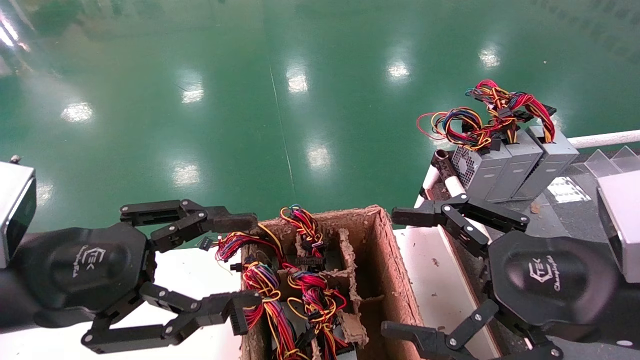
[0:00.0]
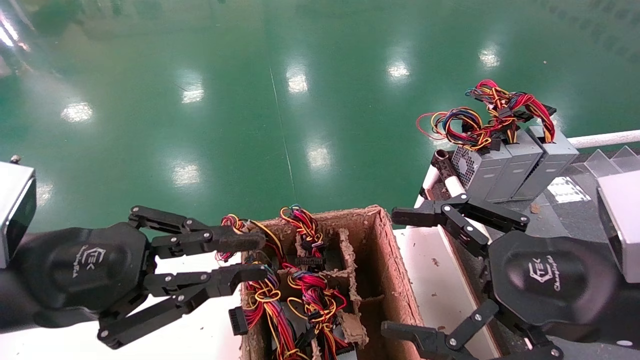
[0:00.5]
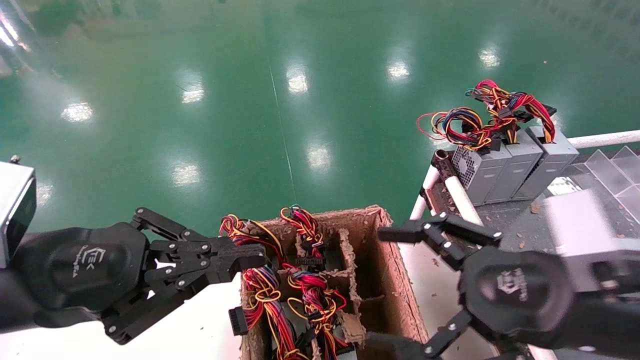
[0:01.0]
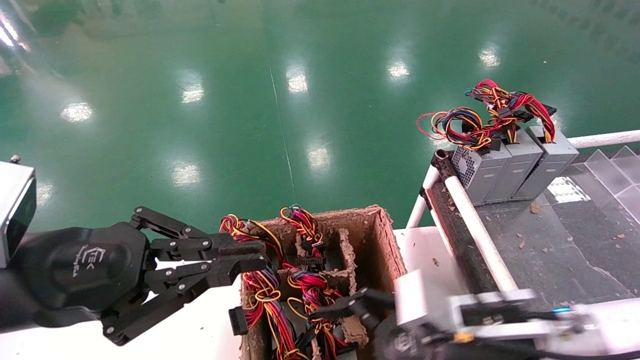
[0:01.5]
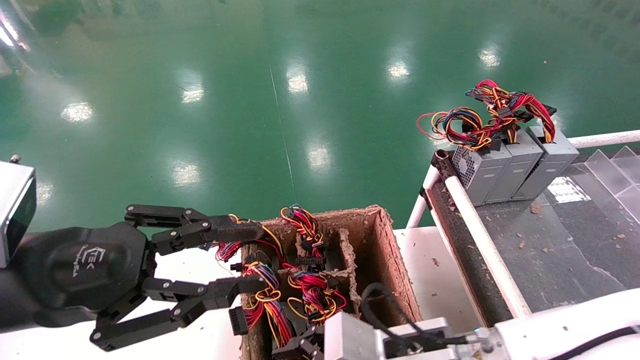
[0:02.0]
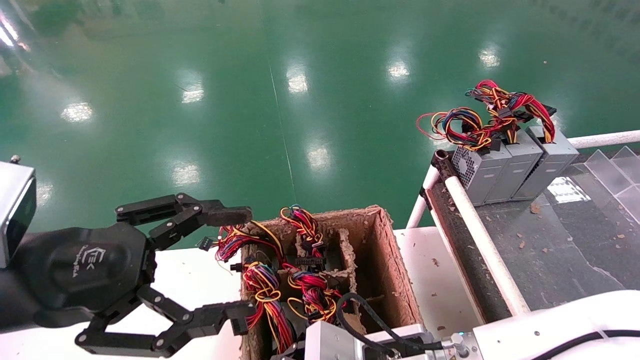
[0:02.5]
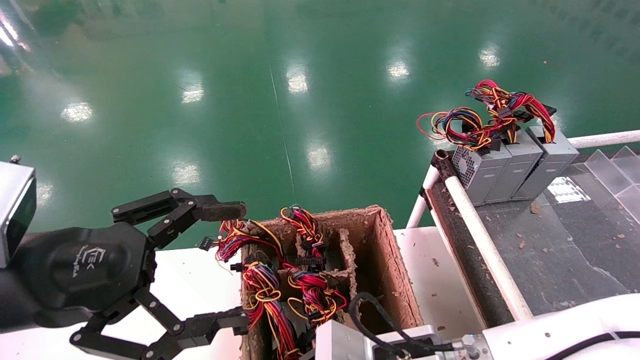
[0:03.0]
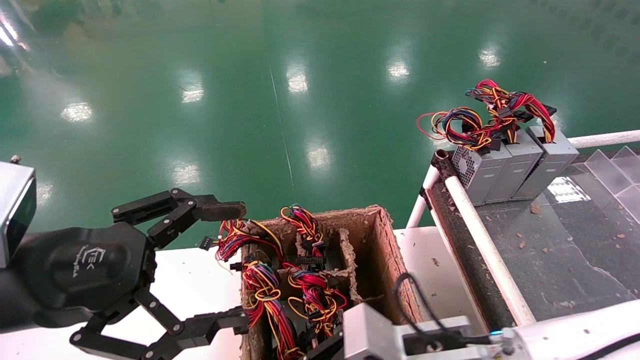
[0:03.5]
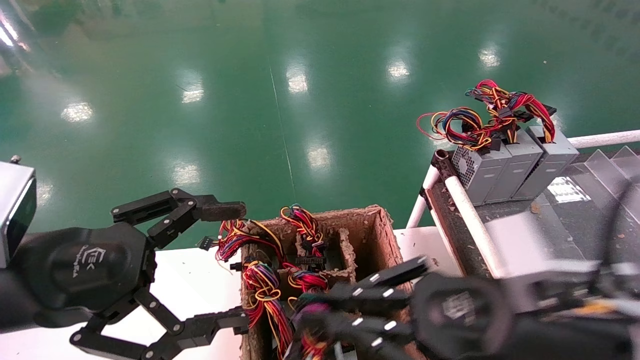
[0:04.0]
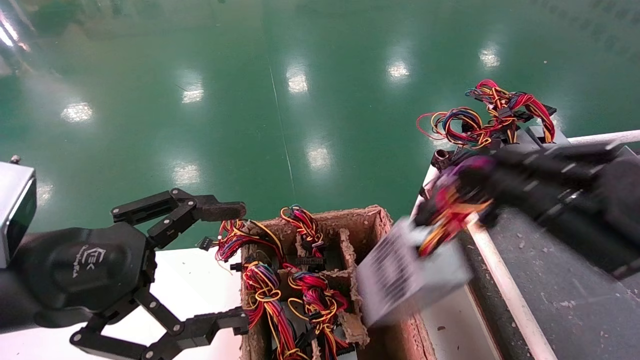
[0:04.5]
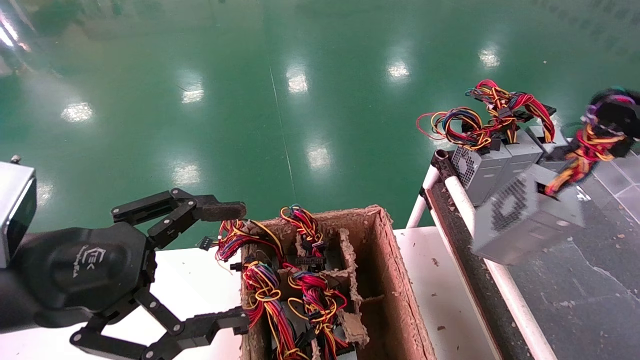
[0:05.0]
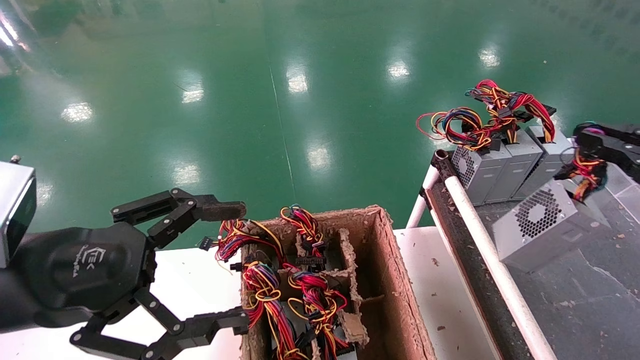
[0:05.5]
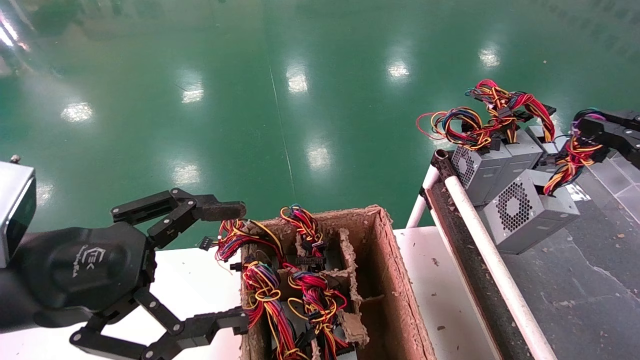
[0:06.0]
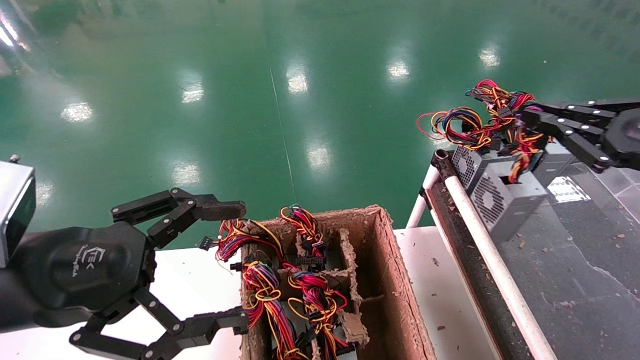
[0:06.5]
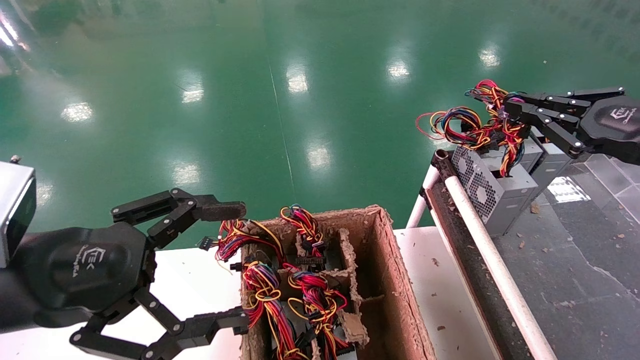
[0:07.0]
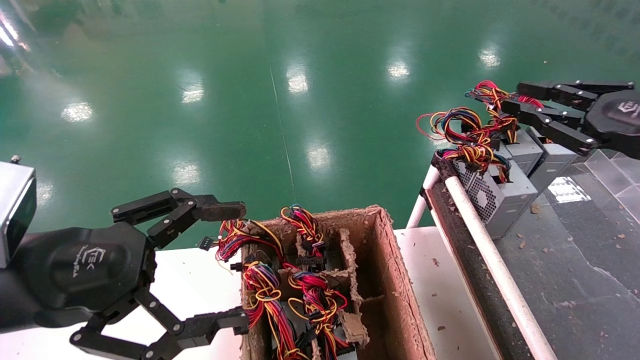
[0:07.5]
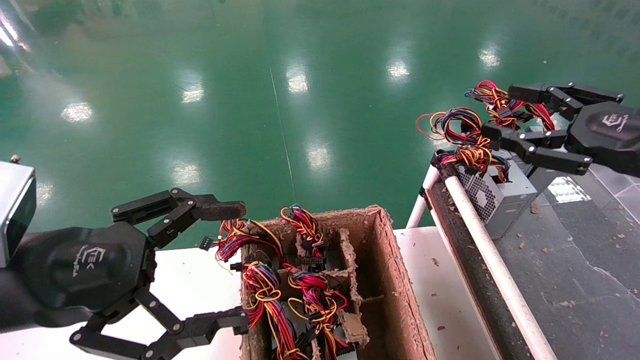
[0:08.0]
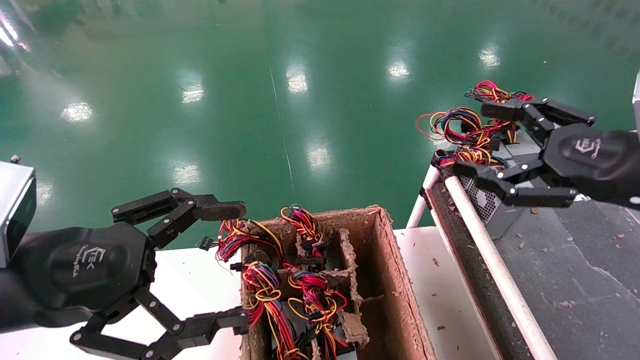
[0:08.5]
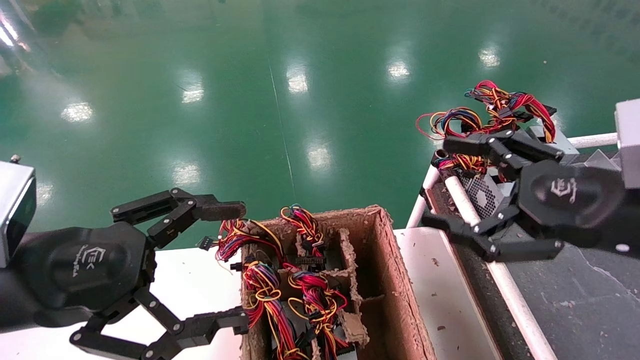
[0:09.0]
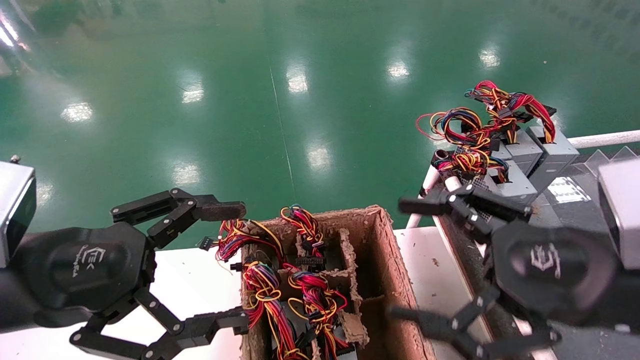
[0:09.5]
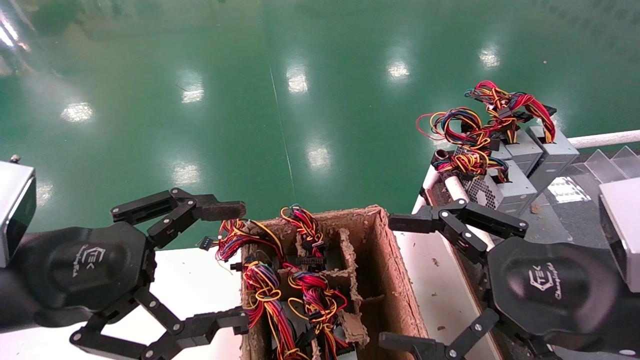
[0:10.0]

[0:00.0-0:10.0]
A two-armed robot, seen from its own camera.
Step, 0:01.5 to 0:03.0: Grab and lift the power supply from the large box.
Step, 0:03.5 to 0:07.0: Place the power supply on the operating table.
0:00.0 to 0:02.0: The left gripper closes its fingers. The right gripper goes about 20 cm downward, to the left and forward.
0:02.0 to 0:04.0: The right gripper travels upward and to the right by approximately 15 cm, and closes up, while the left gripper opens up.
0:04.0 to 0:06.0: The right gripper moves to the right, some 25 cm.
0:06.0 to 0:08.0: The right gripper travels to the left by approximately 10 cm, and opens.
0:08.0 to 0:10.0: The right gripper travels to the left, backward and downward by roughly 20 cm, and opens.
